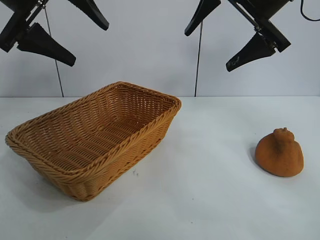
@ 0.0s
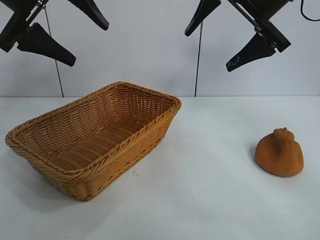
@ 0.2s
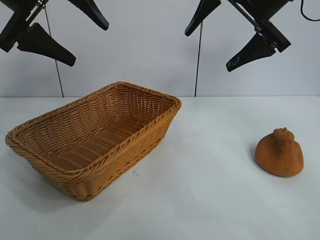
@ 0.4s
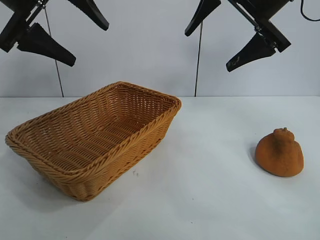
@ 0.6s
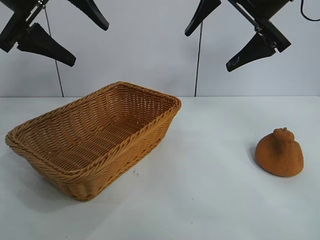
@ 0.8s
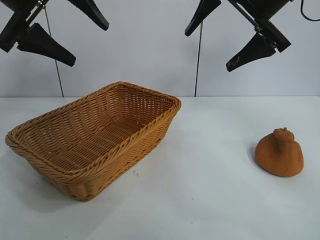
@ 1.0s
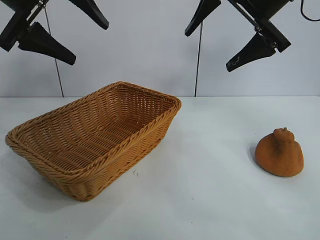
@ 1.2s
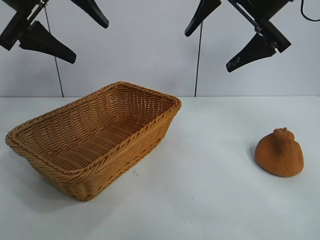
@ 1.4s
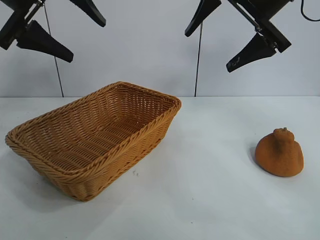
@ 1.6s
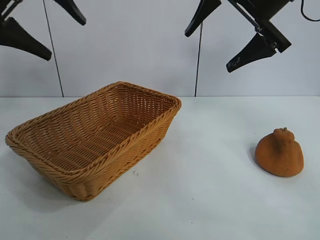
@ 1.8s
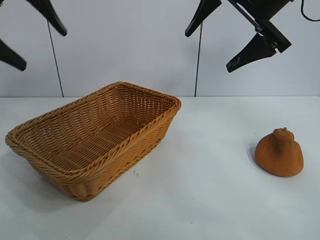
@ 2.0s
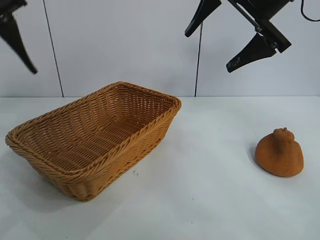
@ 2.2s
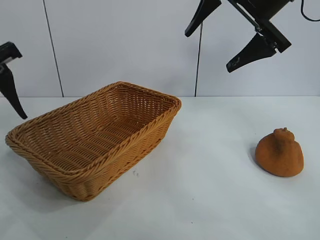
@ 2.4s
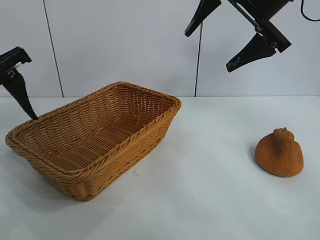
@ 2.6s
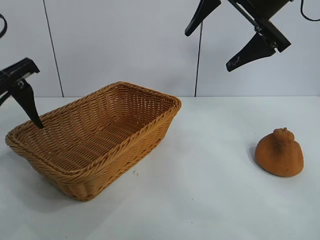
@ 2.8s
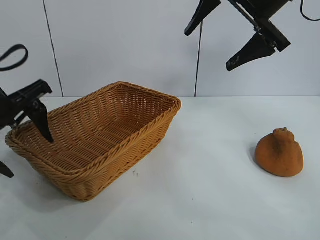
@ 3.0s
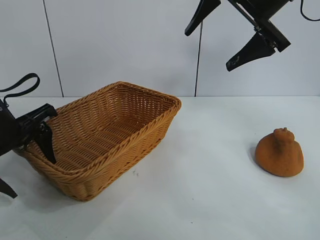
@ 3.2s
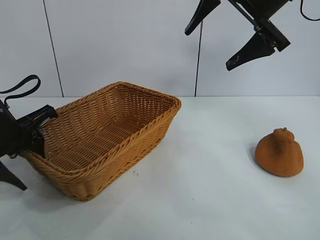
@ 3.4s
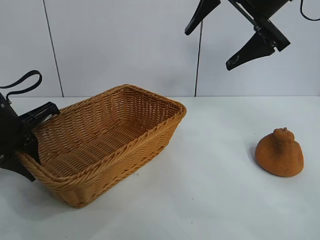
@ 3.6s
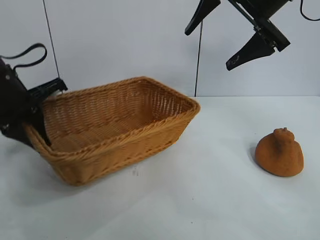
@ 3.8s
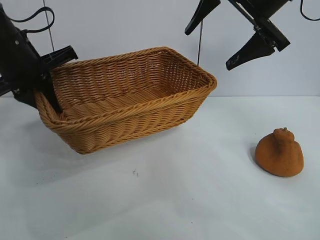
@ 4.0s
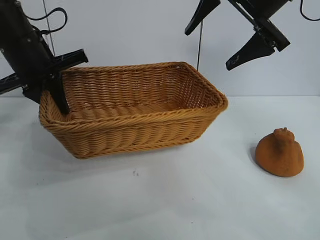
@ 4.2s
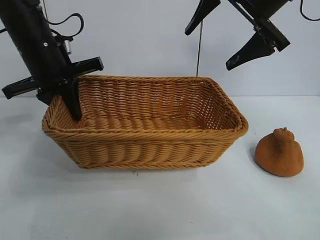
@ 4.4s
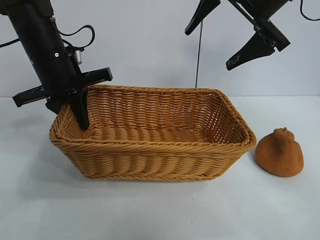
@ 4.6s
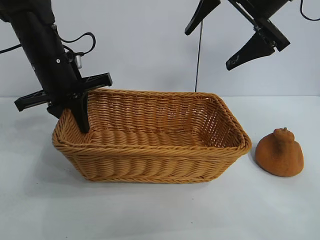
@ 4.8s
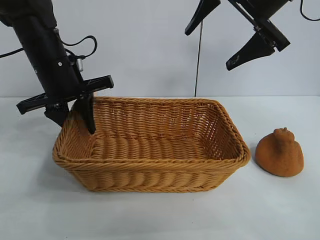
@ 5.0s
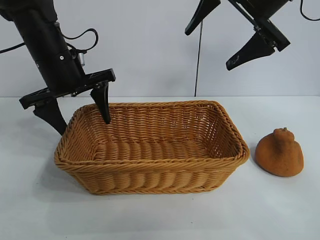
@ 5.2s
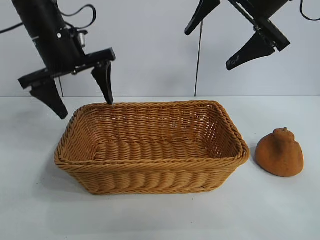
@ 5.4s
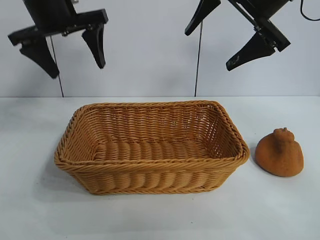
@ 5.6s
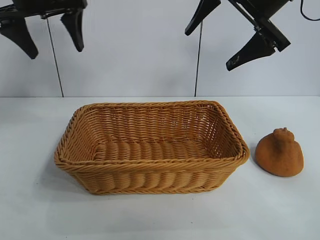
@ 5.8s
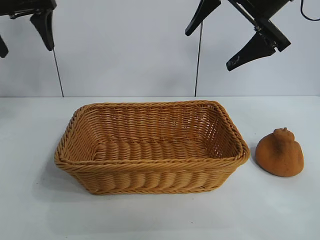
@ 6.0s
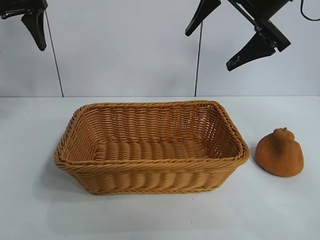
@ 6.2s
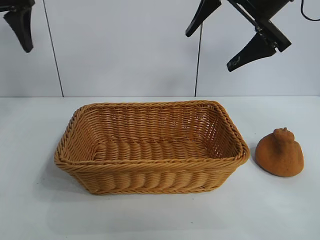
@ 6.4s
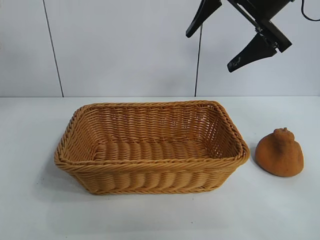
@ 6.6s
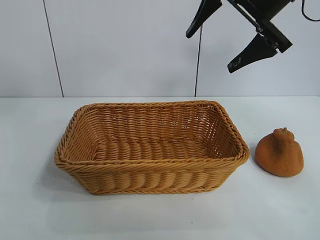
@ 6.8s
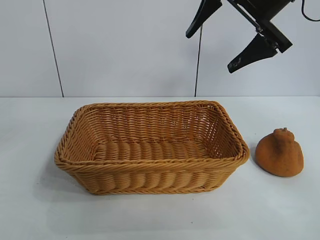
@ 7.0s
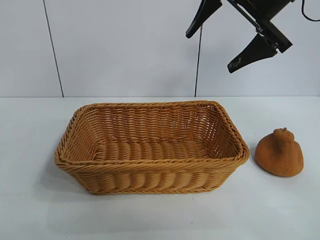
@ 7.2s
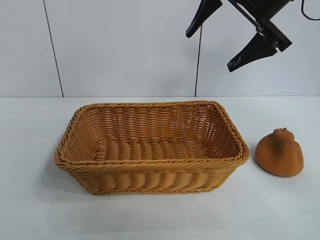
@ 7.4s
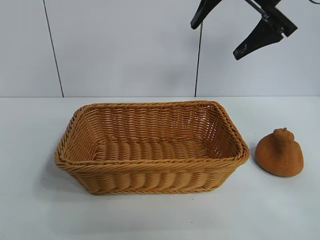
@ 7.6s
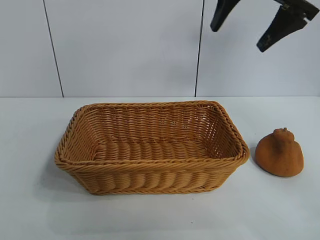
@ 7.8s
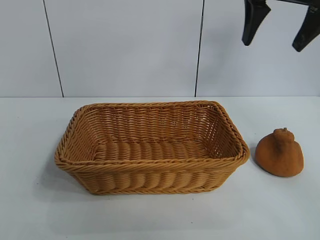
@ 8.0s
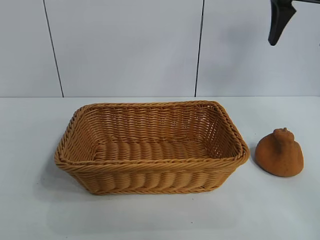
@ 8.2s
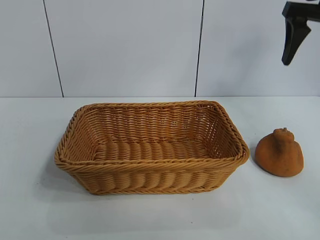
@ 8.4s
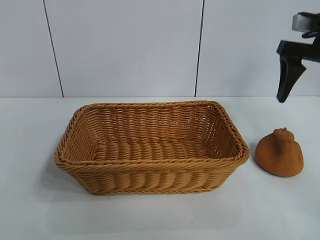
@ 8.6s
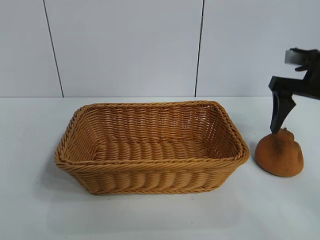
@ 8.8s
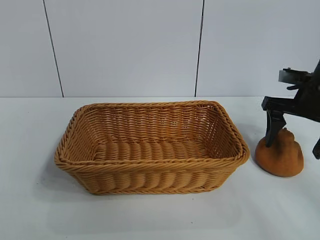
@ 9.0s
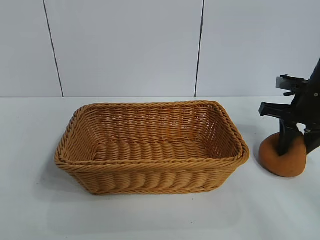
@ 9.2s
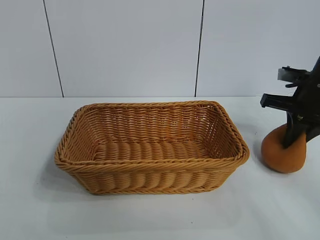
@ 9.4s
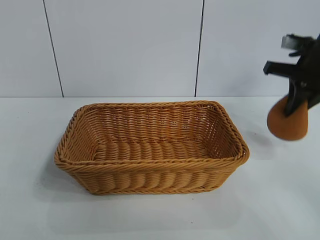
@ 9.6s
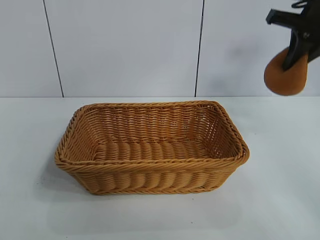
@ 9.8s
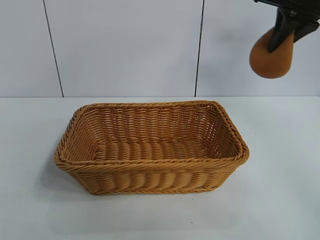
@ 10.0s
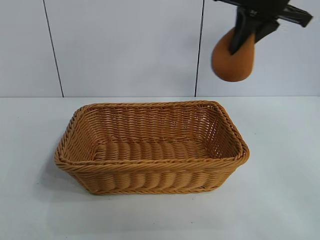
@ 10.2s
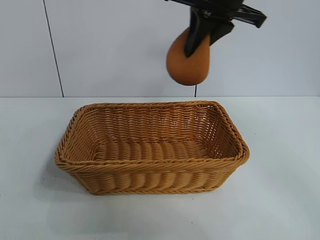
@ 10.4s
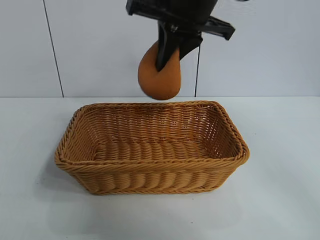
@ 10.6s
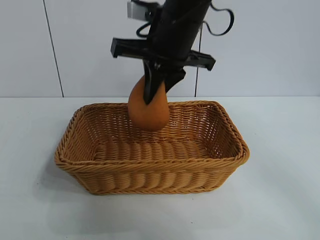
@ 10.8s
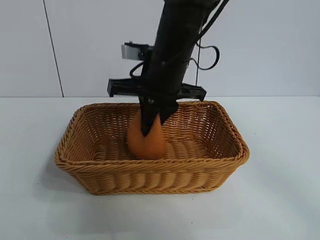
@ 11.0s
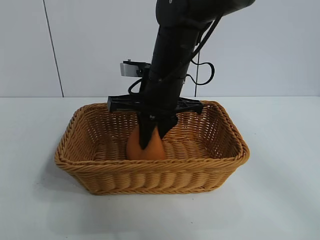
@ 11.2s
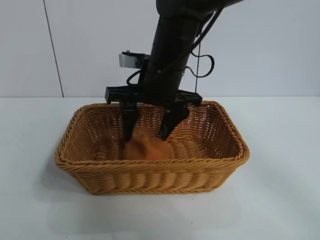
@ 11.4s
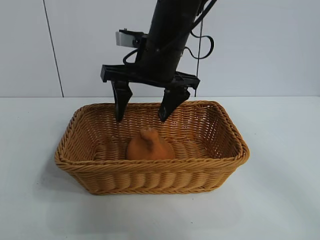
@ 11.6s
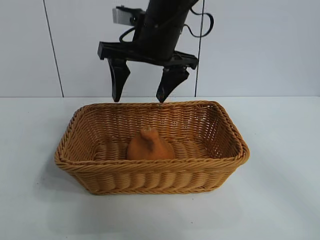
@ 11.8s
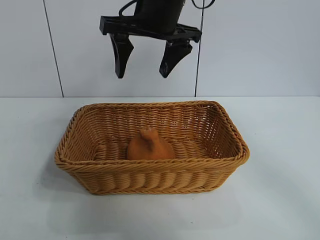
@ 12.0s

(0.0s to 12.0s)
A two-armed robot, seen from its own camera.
Task of the whole recording: pick up the orange and put it into the basket.
Step, 1.0s - 3.4s: Grasp the basket with left gripper.
Step, 3.6s - 5.0s: Place the basket in the center of view with left gripper.
Step, 5.2s - 9.2s: Grasp the orange with right gripper.
Step, 9.4s - 11.6s: Place the orange in the basket with right gripper.
